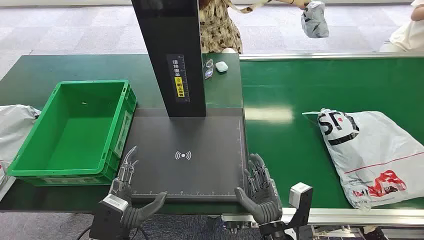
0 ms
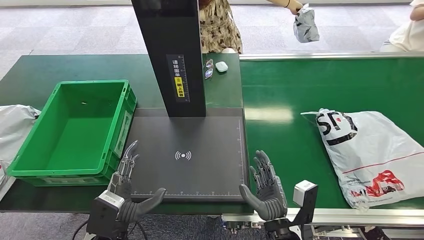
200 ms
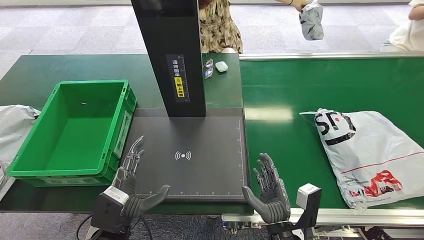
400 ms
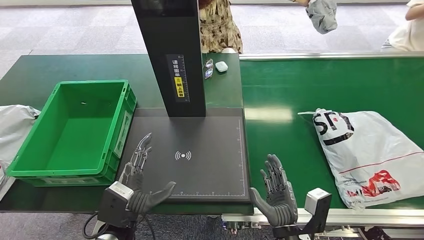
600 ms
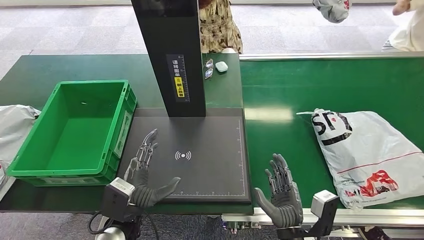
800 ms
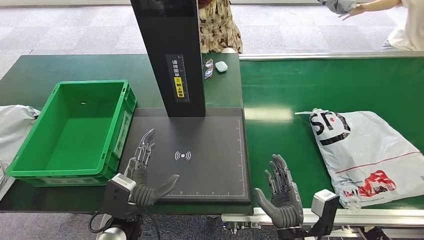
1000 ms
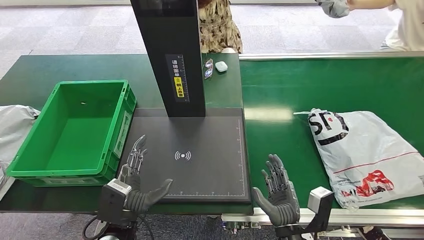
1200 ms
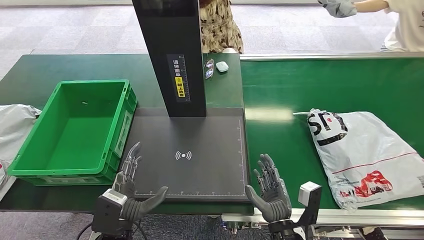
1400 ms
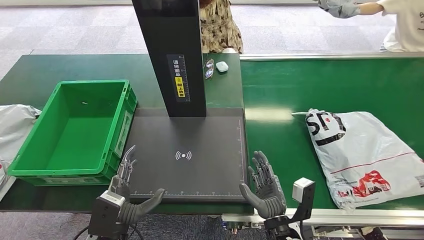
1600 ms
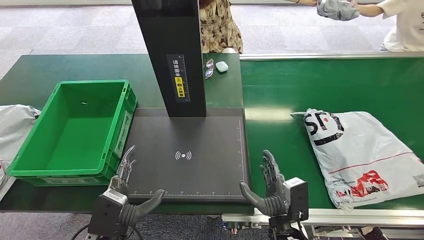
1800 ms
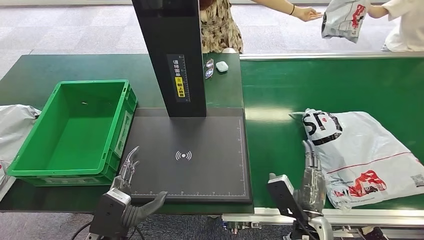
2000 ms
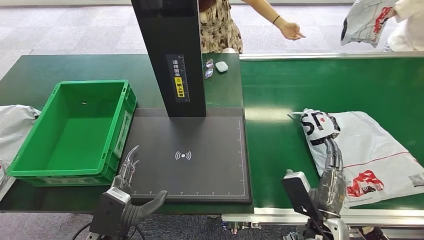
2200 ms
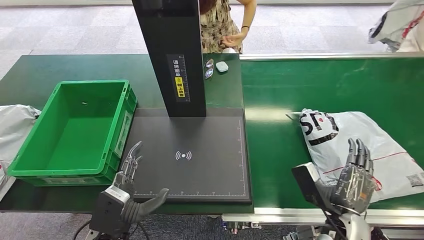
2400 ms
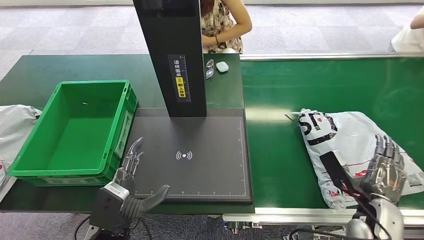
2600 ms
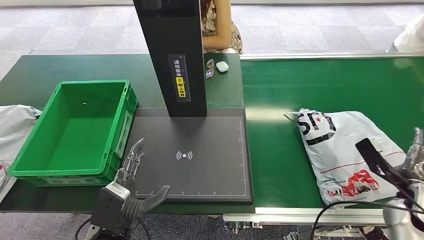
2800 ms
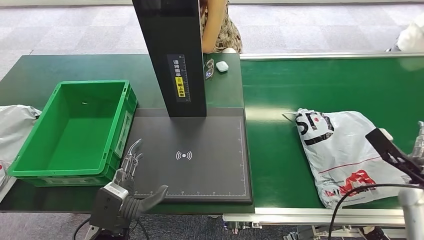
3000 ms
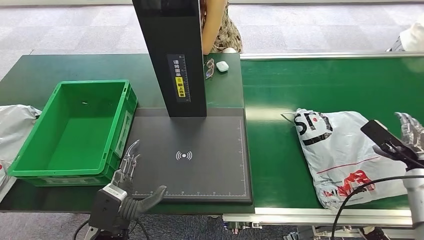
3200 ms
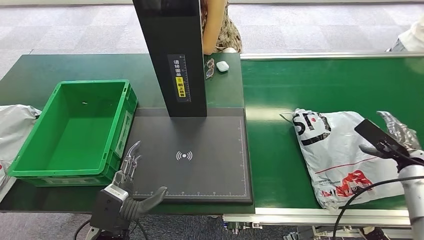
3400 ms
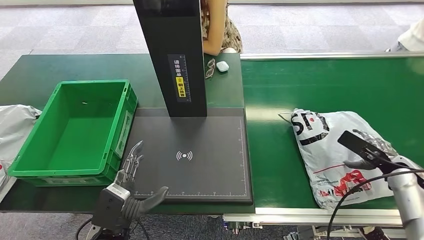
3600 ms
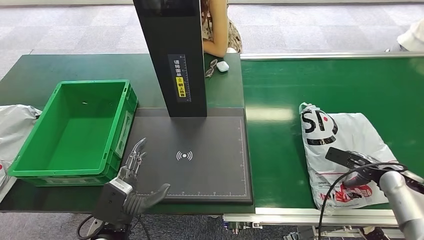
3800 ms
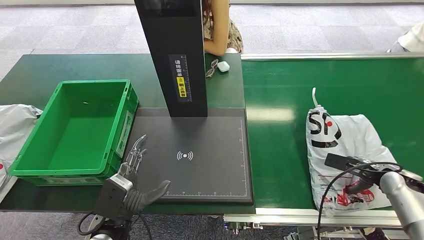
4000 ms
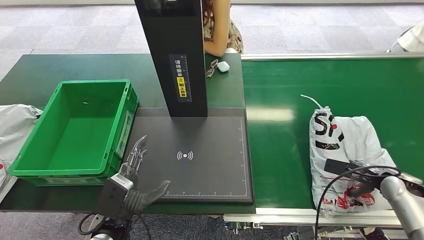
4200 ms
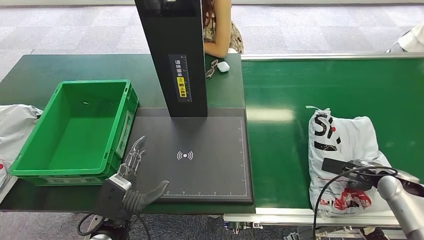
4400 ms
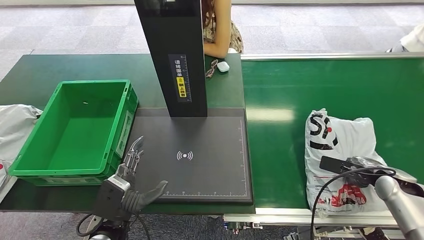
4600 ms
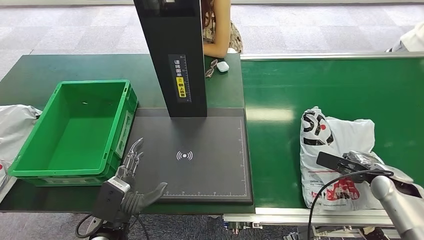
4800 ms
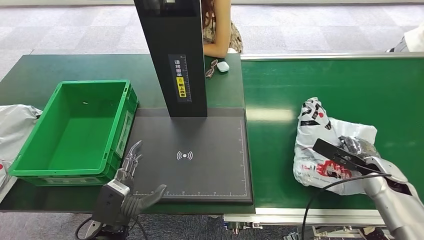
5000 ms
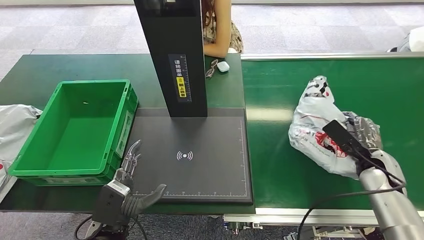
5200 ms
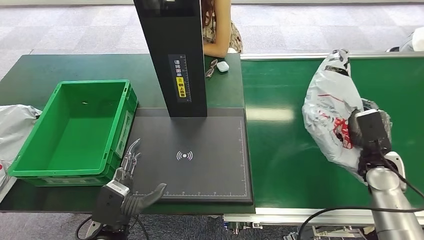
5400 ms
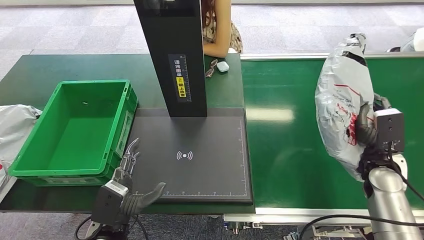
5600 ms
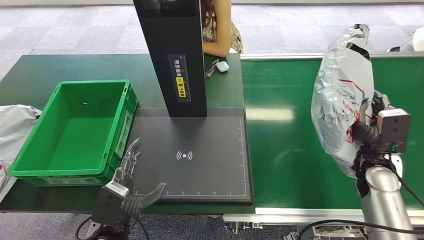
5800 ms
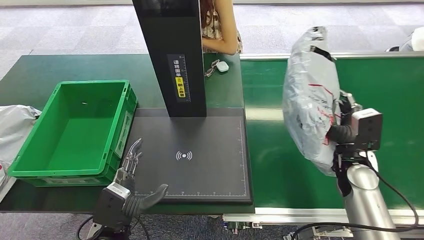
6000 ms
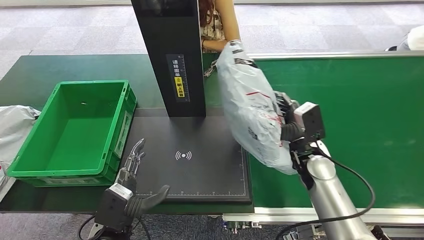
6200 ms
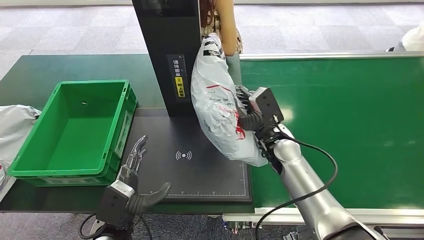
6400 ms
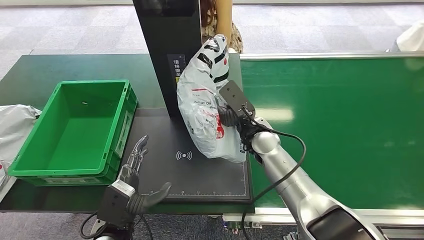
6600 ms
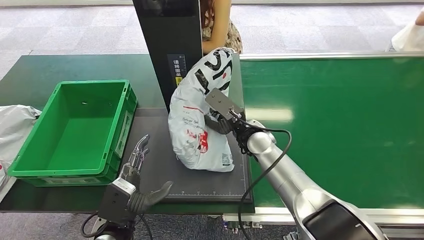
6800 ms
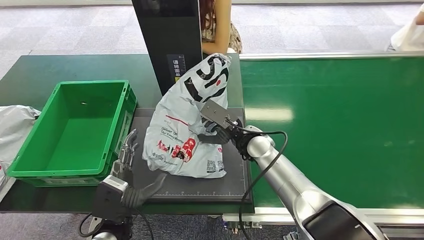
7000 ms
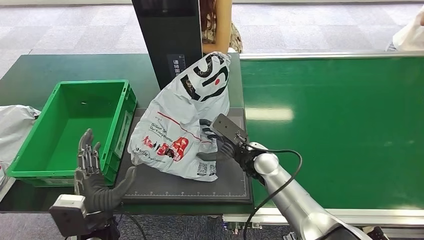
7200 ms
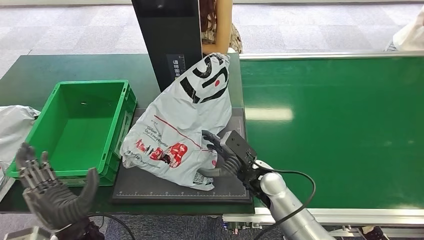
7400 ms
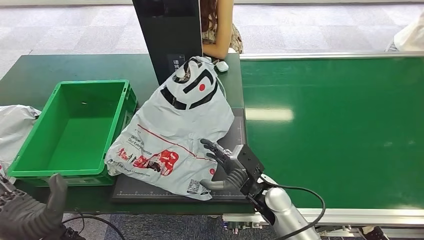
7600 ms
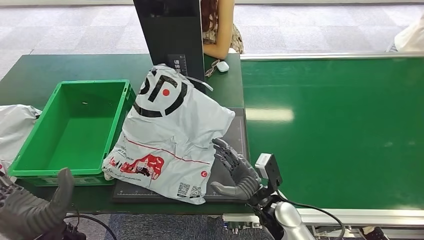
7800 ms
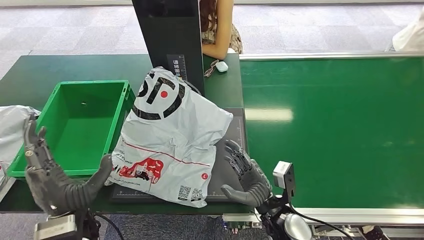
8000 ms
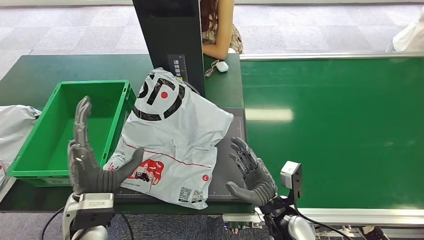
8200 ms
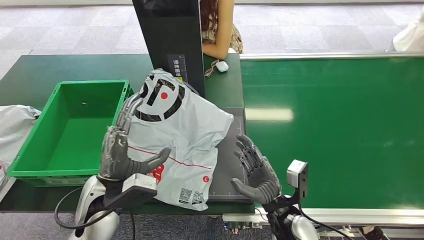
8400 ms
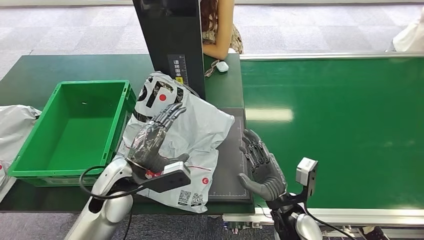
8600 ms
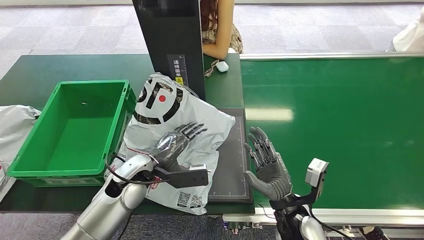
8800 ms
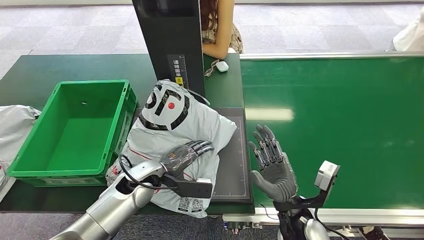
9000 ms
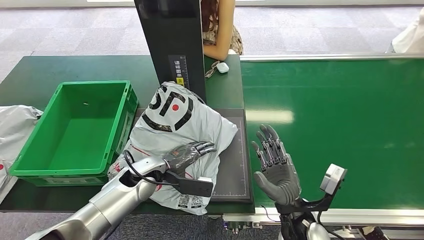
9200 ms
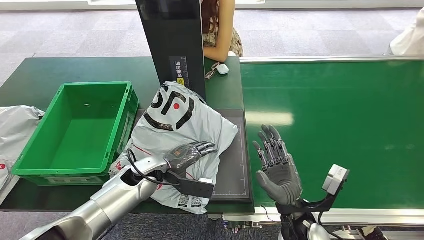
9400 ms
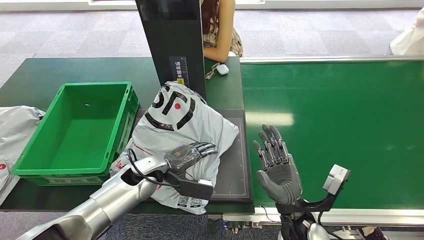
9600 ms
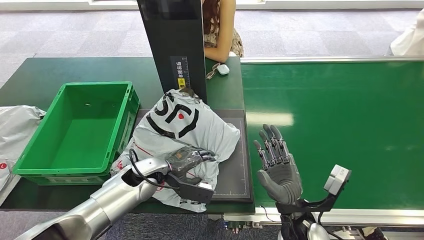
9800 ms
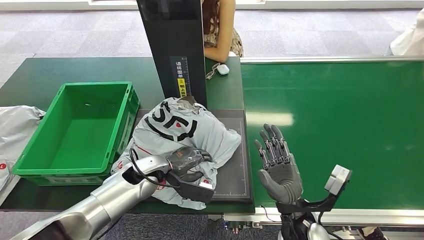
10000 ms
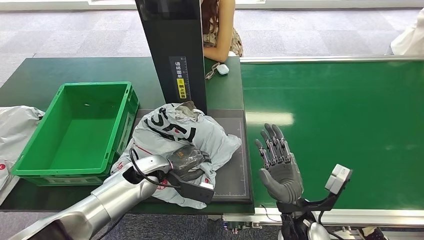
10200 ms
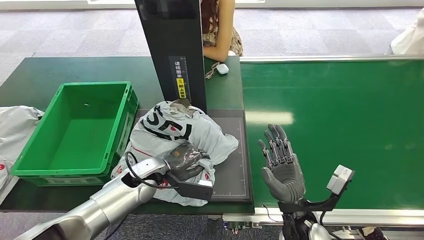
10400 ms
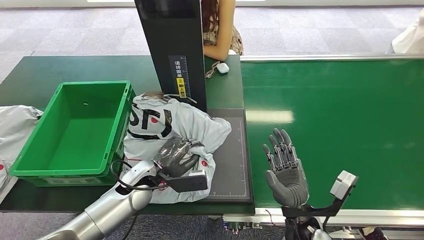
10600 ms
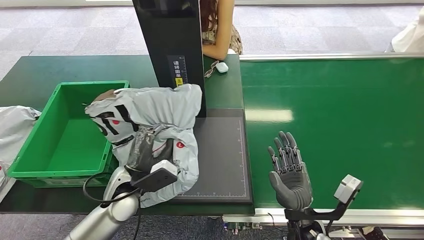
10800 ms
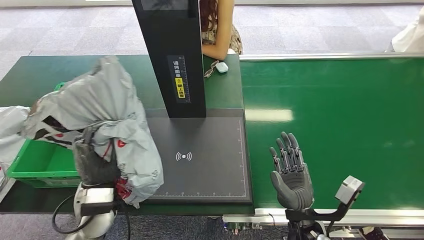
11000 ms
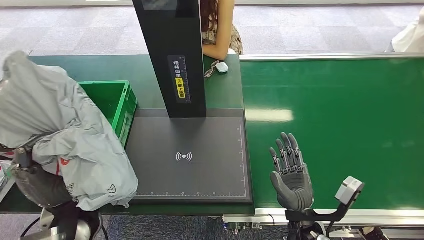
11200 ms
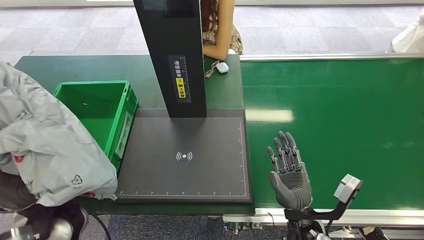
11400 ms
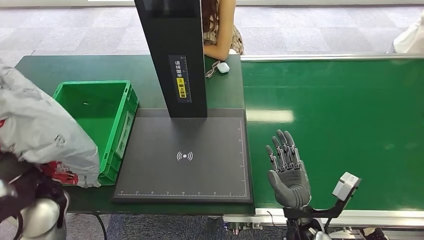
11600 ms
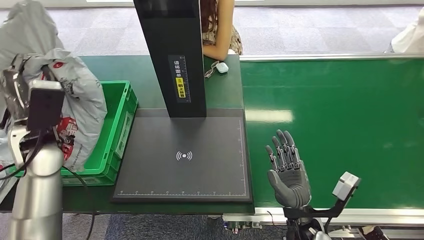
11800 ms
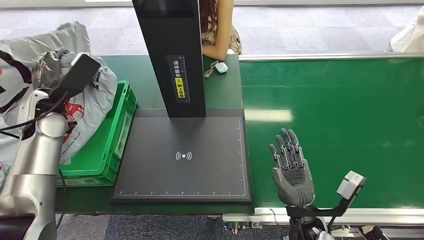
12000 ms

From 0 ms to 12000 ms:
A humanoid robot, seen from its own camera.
Step, from 0 ms to 5600 ms: Pick up the package from the conveyor belt.
Step, from 6000 ms to 8000 ms: Place the package onto the inbound machine.
Step, from 8400 ms to 11200 ms: Pick up the package from the inbound machine.
From 1600 ms to 3000 ms: The right hand heads to the right, covering about 35 cm.
From 3000 ms to 4400 ms: The right hand moves some 5 cm.

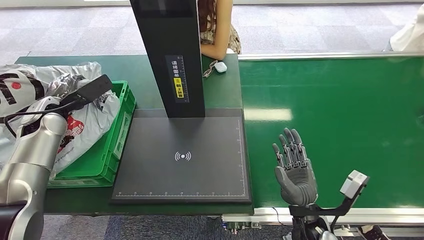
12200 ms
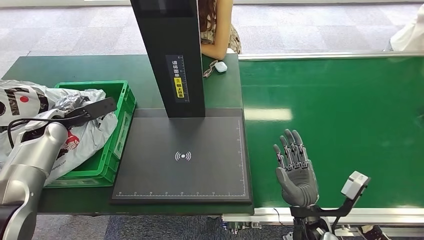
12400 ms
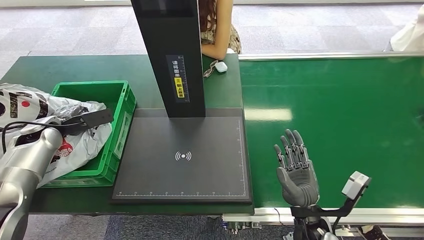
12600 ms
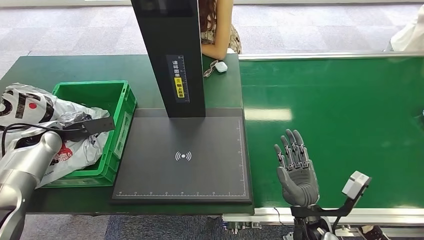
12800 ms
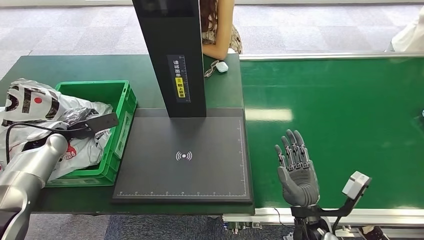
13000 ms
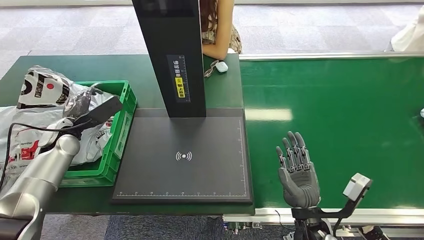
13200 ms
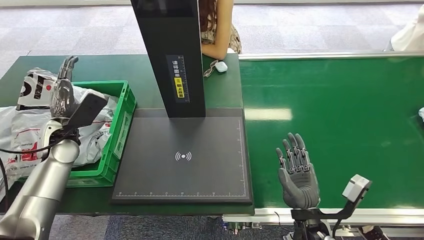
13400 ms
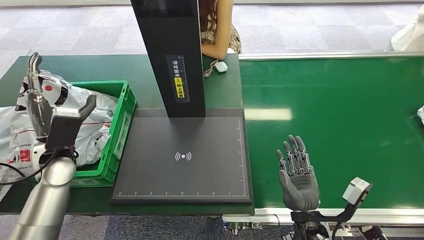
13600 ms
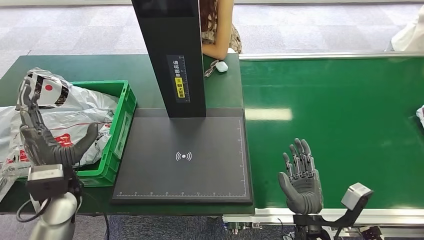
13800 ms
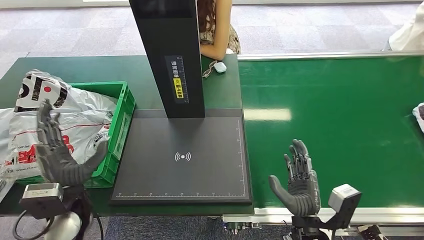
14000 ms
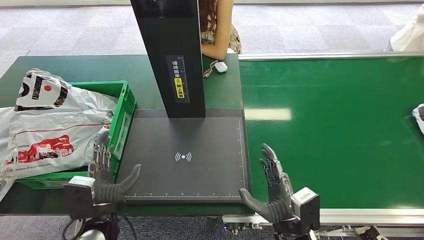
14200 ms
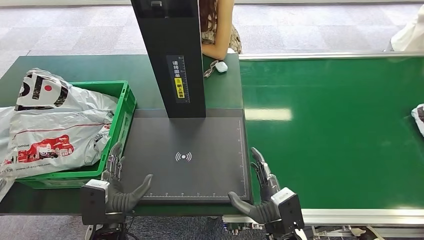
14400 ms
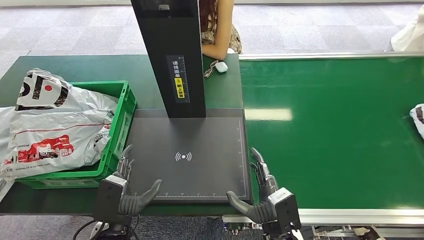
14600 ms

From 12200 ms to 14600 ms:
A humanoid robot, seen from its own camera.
Step, from 12200 ms to 14600 ms: Place the package into the parcel locker.
From 12200 ms to 13400 ms: The left hand ends up roughly 5 cm from where it was.
From 13400 ms to 14600 ms: The left hand is displaced backward, to the right and downward by some 30 cm; the right hand is displaced to the left by approximately 5 cm.

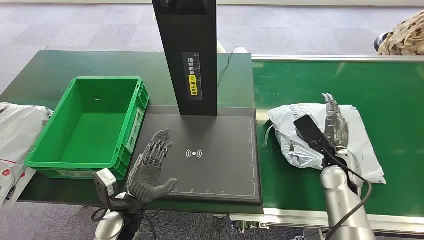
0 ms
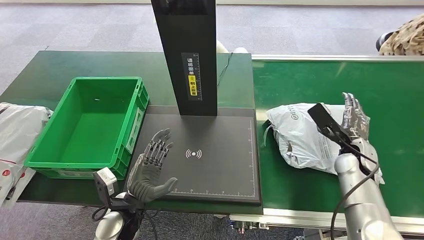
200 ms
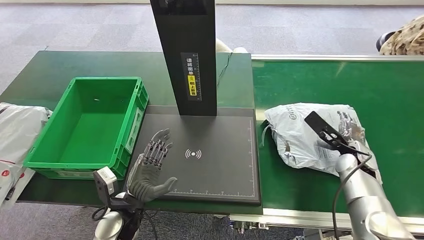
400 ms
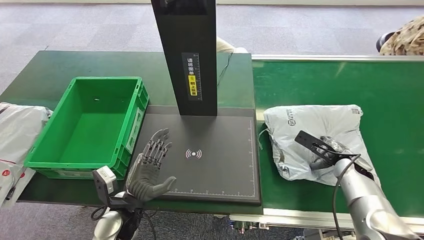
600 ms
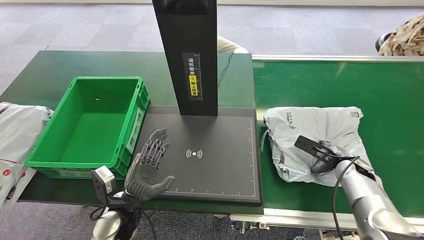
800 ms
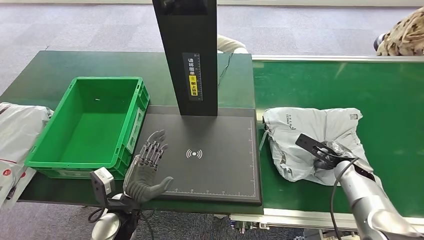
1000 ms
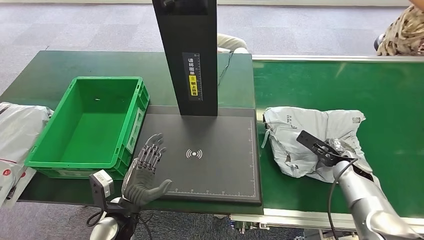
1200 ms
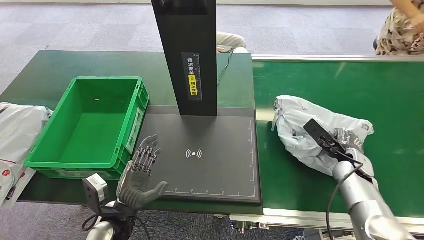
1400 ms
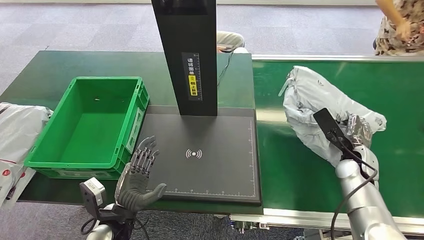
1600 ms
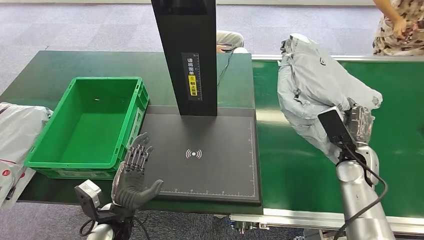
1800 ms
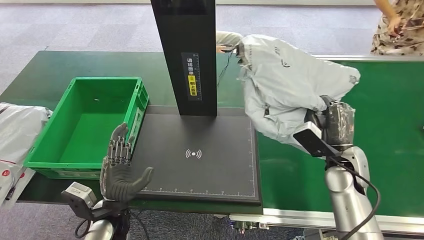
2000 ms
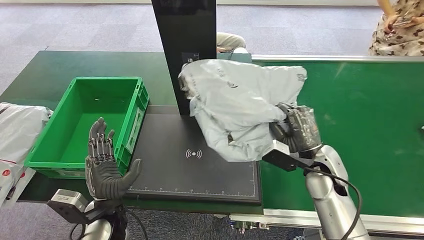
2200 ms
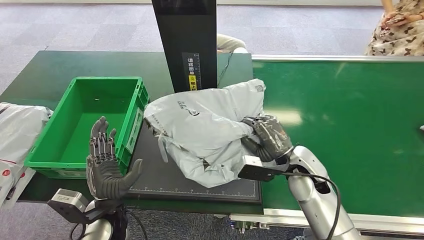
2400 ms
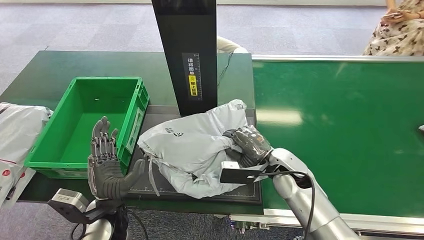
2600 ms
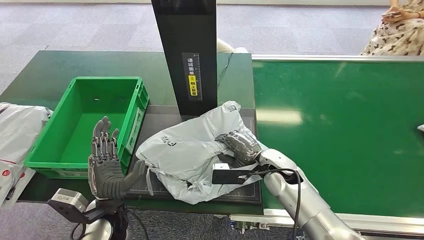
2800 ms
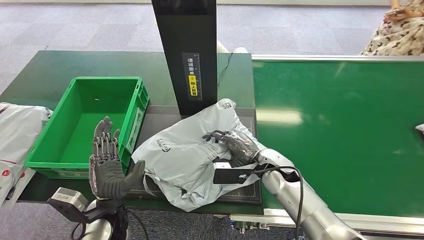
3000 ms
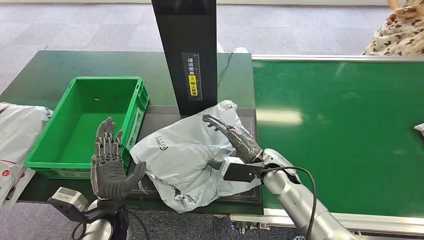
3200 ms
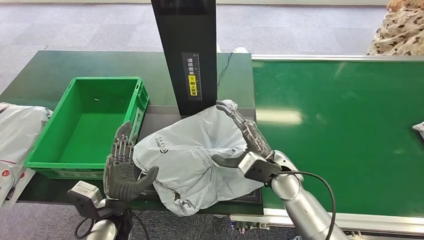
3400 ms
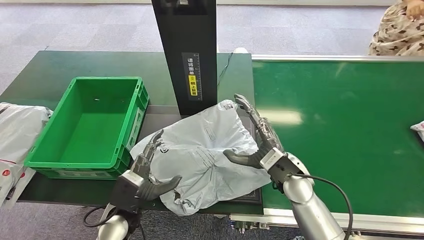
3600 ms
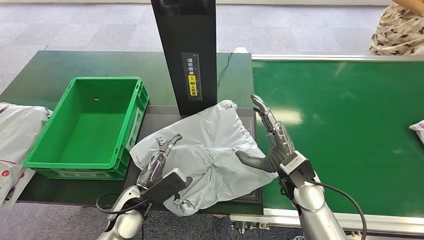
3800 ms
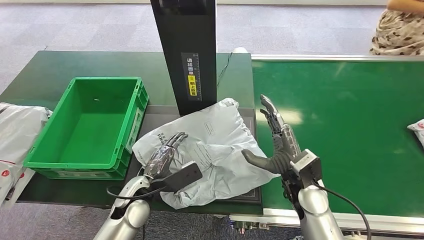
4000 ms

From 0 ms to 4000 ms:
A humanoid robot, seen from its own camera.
Step, from 0 ms to 1800 ms: Pick up the package from the conveyor belt.
Step, from 2000 ms to 3600 ms: Place the package onto the inbound machine.
From 2600 ms to 4000 ms: The left hand moves forward, approximately 5 cm.
